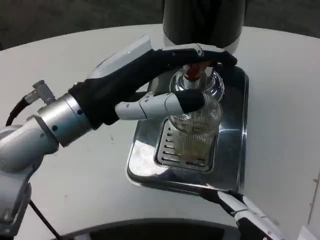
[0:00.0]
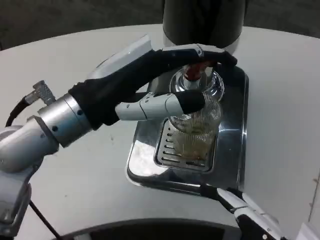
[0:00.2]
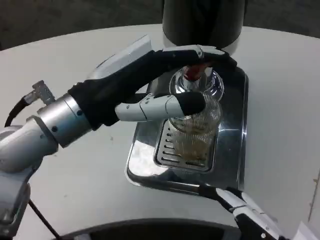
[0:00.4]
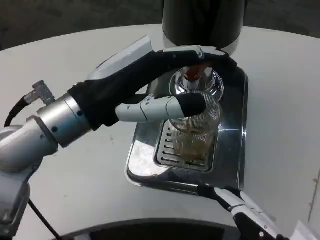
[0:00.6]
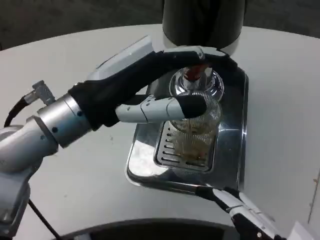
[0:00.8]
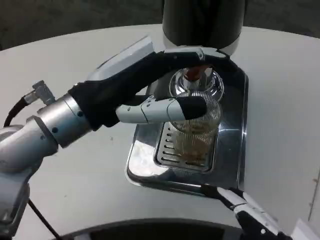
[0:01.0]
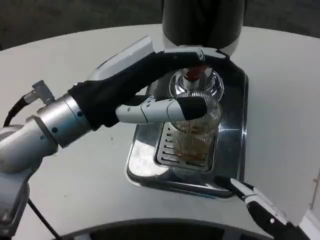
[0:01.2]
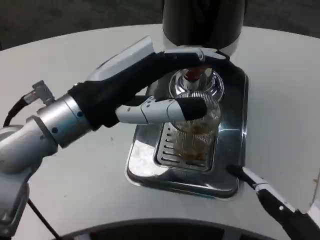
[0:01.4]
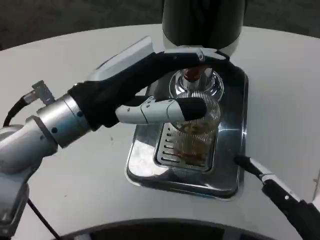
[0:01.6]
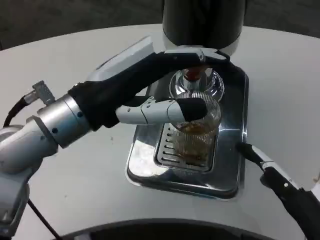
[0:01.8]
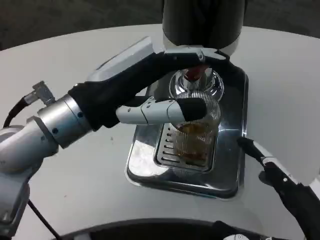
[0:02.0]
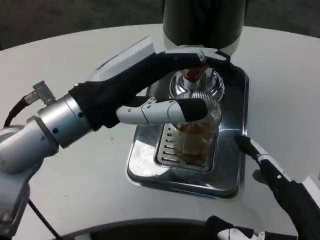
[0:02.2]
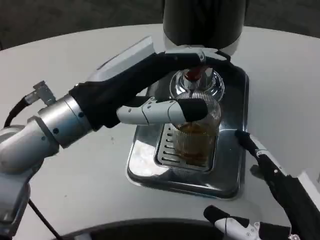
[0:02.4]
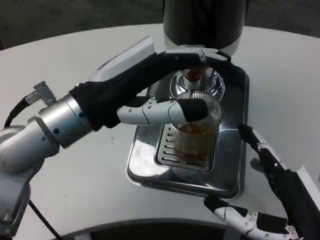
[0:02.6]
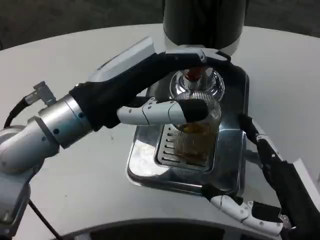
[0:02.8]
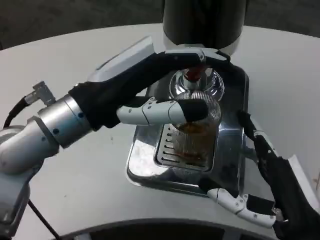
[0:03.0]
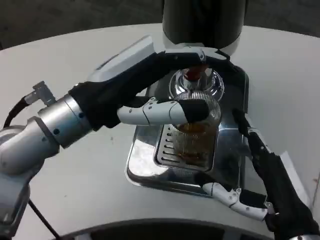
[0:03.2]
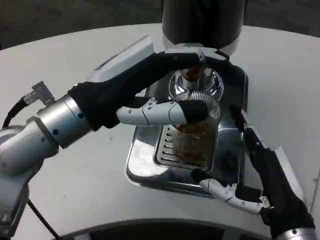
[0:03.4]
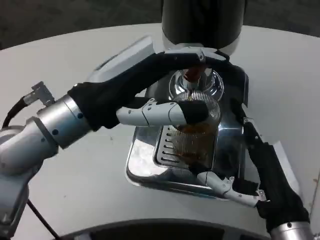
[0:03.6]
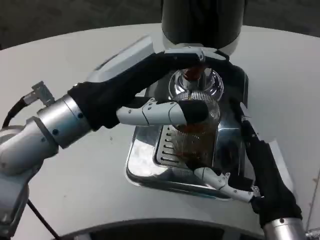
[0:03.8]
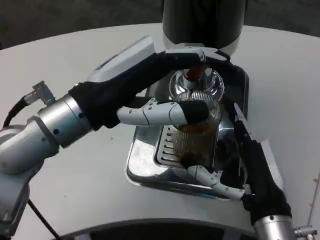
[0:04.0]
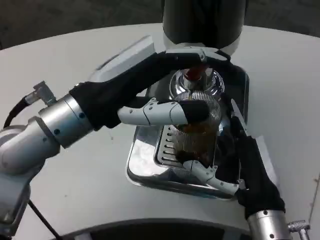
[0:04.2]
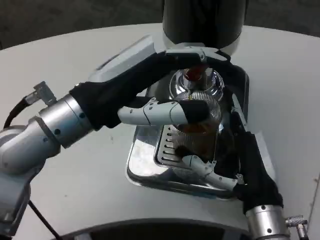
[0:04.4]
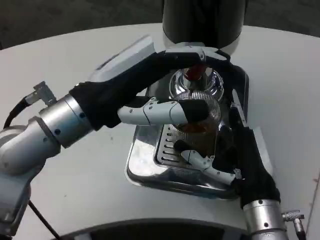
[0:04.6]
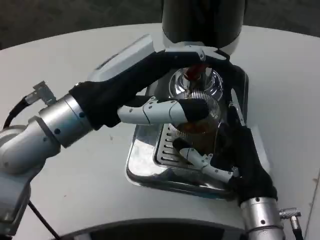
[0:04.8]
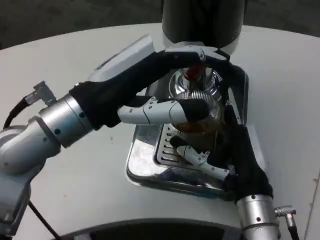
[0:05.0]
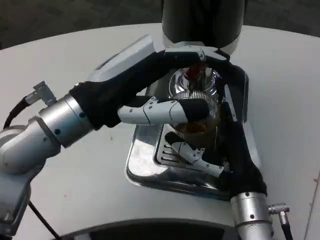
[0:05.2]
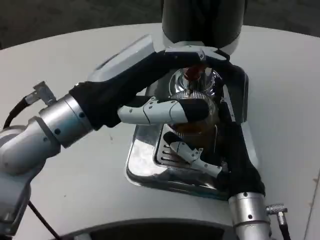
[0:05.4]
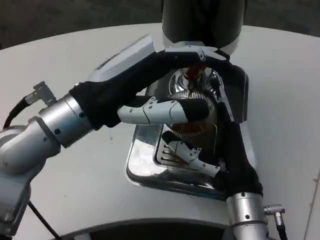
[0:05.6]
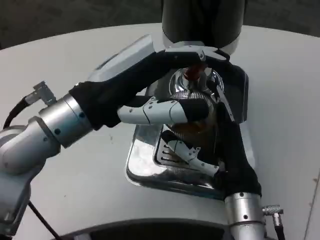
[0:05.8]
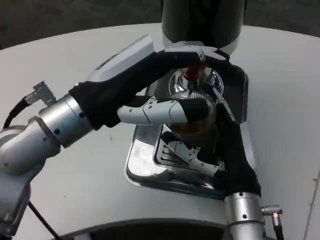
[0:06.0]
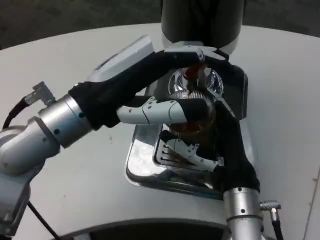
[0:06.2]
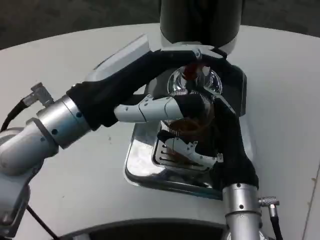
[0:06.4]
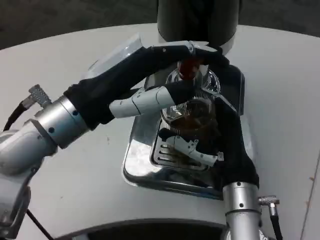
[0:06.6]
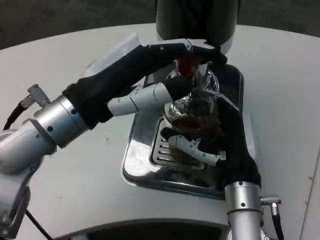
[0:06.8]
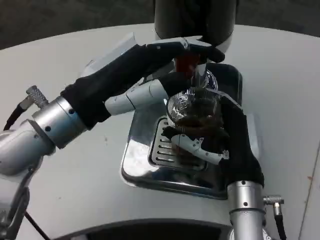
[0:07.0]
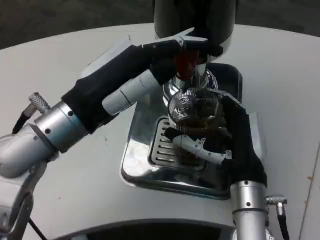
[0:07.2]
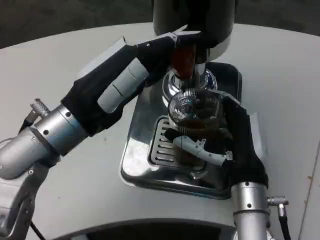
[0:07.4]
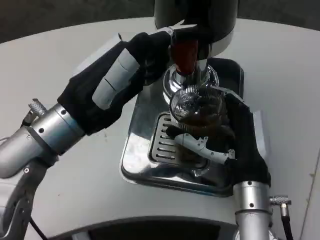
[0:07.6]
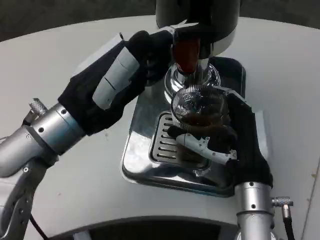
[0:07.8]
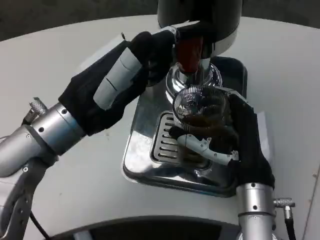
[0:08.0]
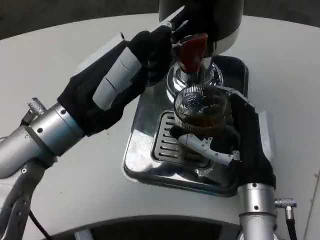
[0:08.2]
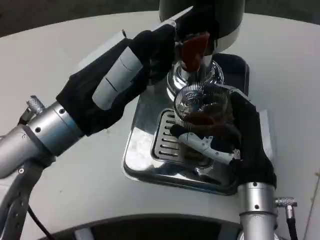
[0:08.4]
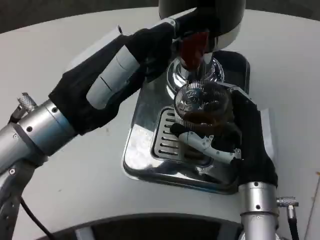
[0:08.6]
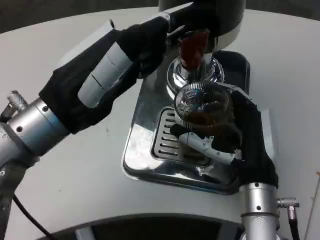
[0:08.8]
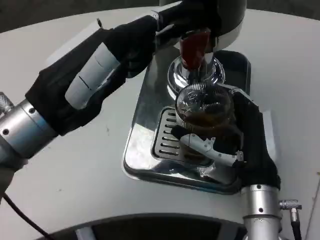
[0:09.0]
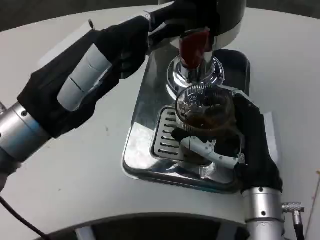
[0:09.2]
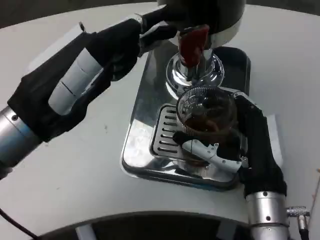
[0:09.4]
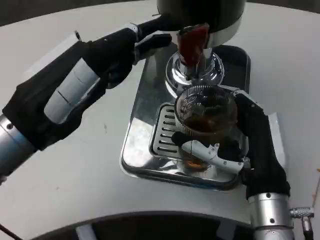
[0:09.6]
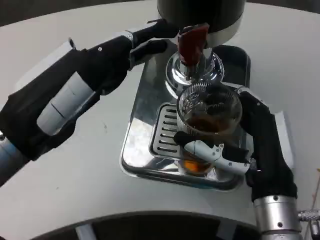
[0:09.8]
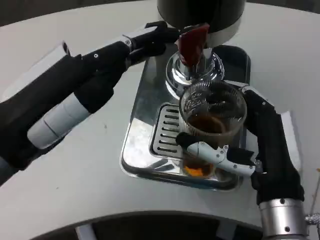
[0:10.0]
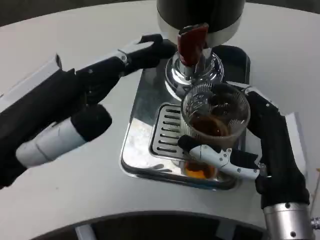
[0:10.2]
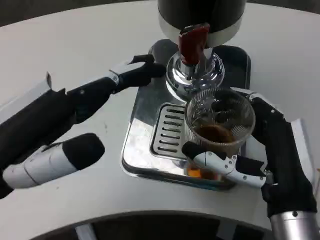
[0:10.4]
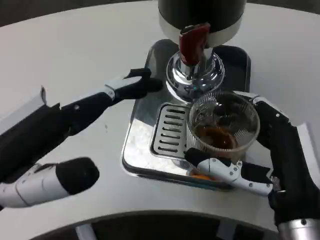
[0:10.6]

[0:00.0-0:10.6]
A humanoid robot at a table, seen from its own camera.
Task of the whole recording: Grasp the cup under the faucet to collect the drink, then remove the cup.
0:00.0 to 0:01.6: There are only small adjustments of the hands.
0:01.6 to 0:03.0: The right hand shifts roughly 10 cm forward and downward.
0:03.0 to 0:04.6: The right hand is displaced forward by approximately 10 cm.
0:04.6 to 0:06.0: The hands move only a little.
0:09.0 to 0:10.6: Both hands travel together backward, about 10 cm.

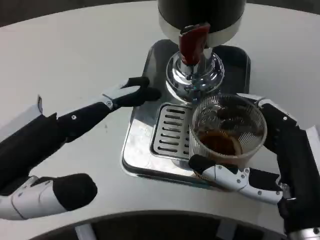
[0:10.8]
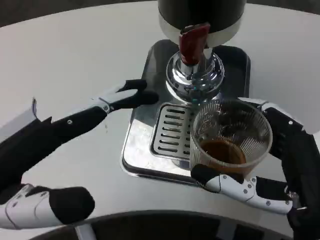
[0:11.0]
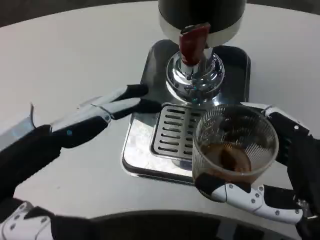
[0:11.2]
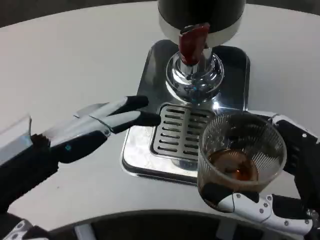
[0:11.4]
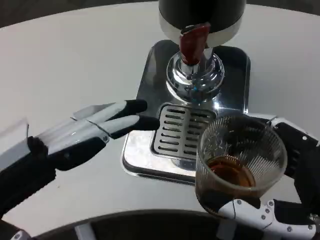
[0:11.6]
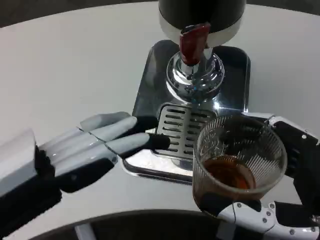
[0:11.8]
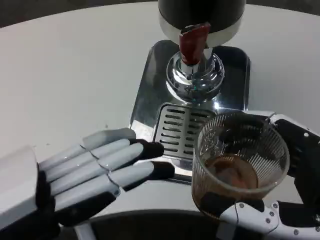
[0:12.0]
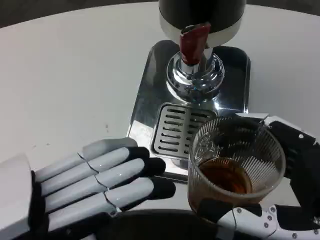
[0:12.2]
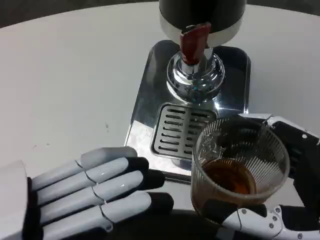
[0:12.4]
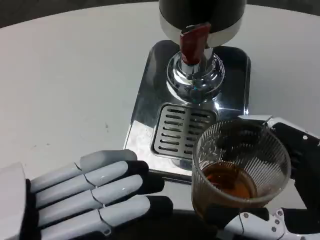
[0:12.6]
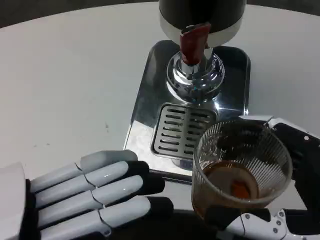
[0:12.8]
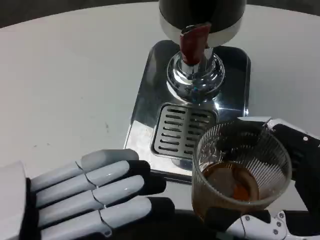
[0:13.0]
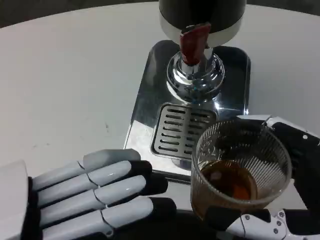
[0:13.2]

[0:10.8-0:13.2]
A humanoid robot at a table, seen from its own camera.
Task of the whole recording: Grasp the cup under the faucet to collect the drink, then remove the cup.
0:10.8 to 0:12.0: The right hand goes about 5 cm backward.

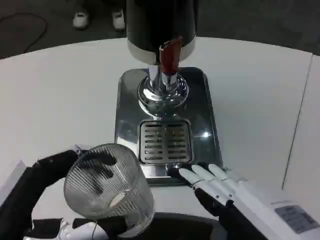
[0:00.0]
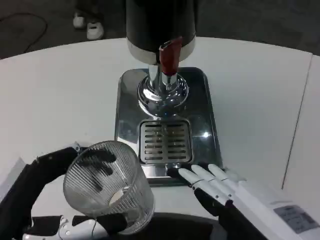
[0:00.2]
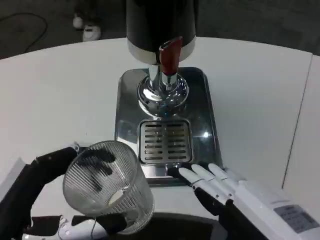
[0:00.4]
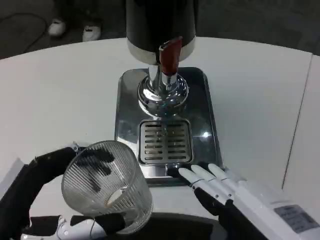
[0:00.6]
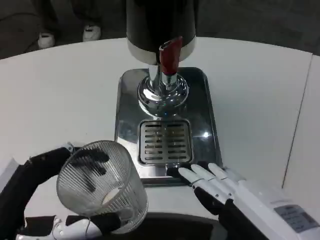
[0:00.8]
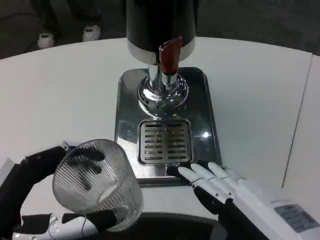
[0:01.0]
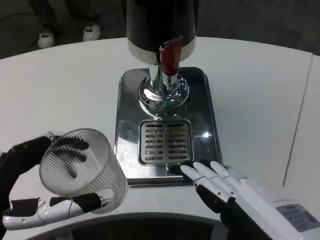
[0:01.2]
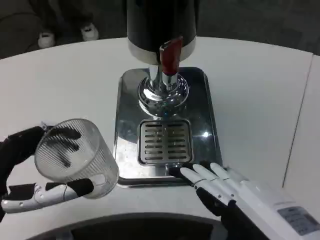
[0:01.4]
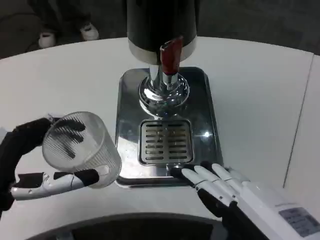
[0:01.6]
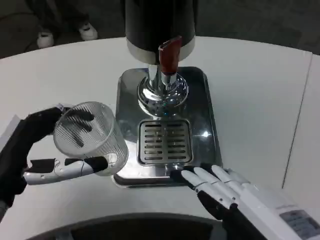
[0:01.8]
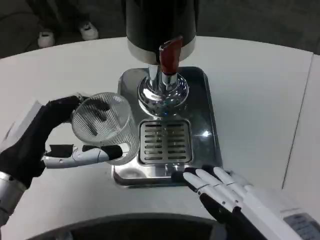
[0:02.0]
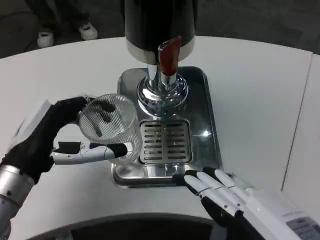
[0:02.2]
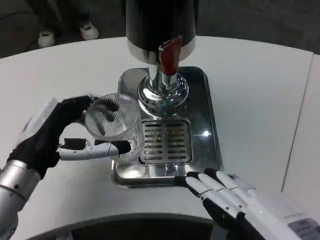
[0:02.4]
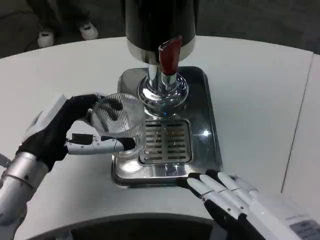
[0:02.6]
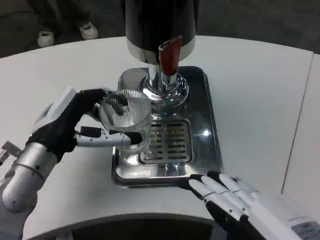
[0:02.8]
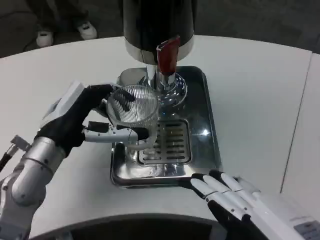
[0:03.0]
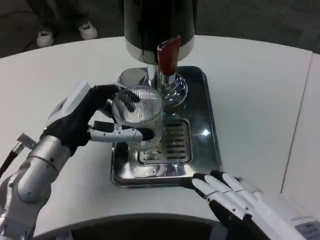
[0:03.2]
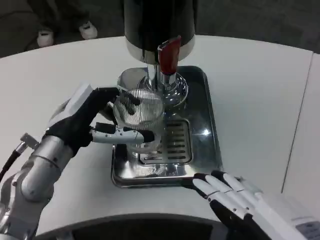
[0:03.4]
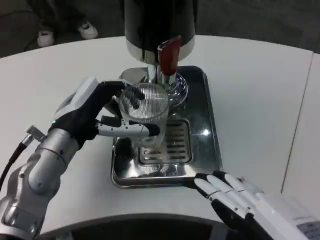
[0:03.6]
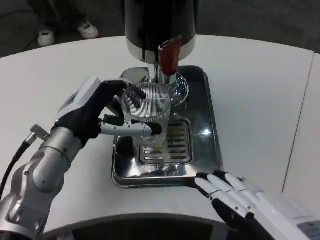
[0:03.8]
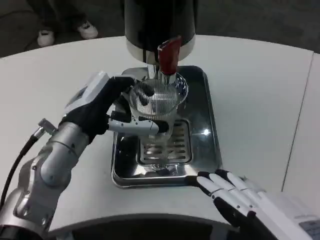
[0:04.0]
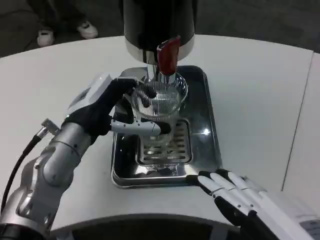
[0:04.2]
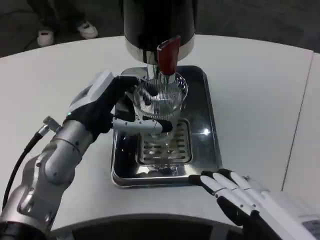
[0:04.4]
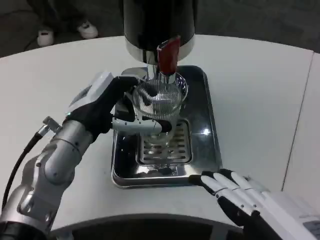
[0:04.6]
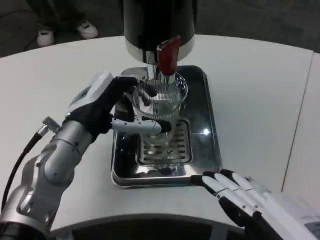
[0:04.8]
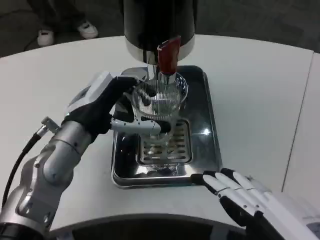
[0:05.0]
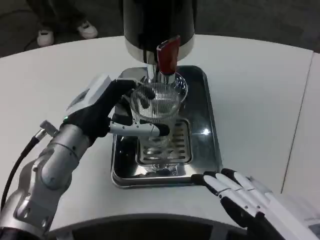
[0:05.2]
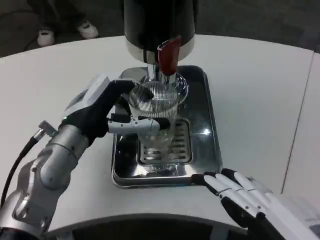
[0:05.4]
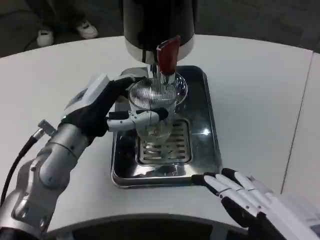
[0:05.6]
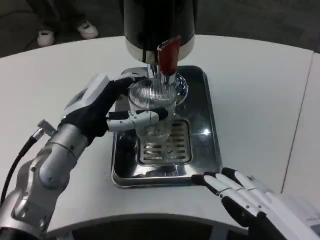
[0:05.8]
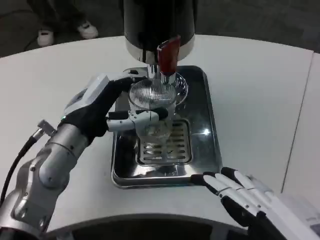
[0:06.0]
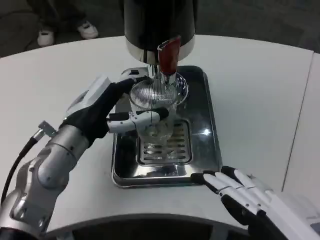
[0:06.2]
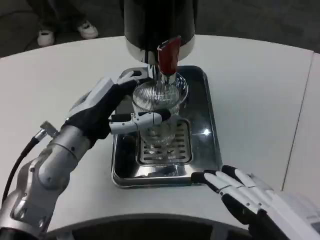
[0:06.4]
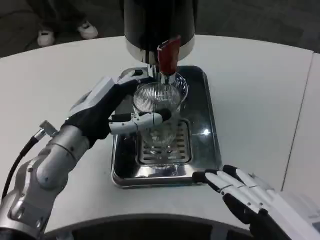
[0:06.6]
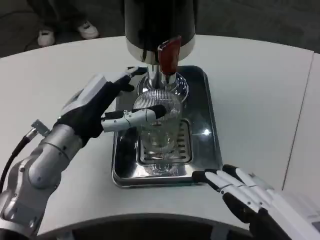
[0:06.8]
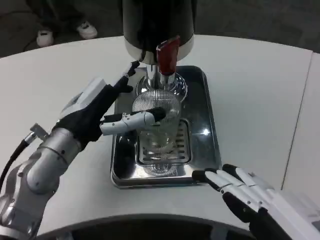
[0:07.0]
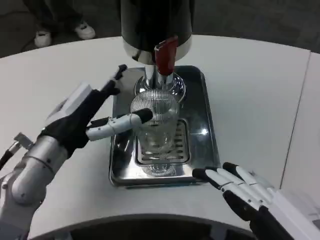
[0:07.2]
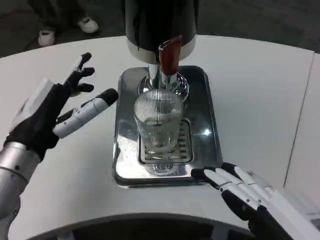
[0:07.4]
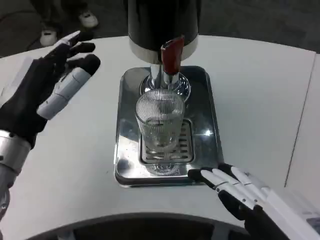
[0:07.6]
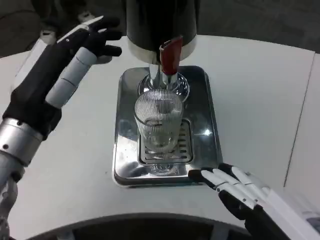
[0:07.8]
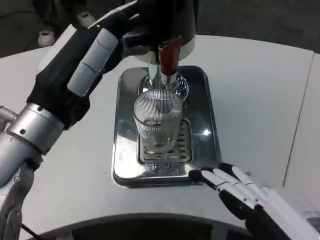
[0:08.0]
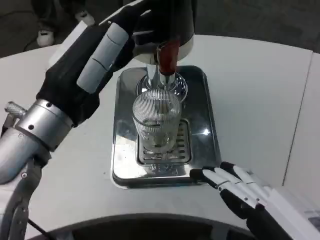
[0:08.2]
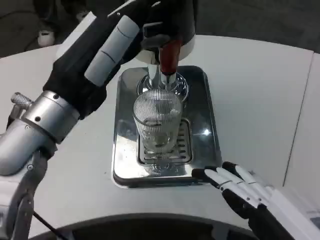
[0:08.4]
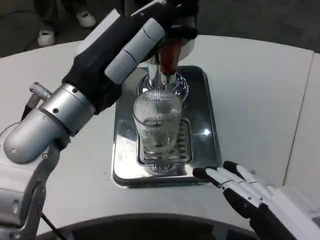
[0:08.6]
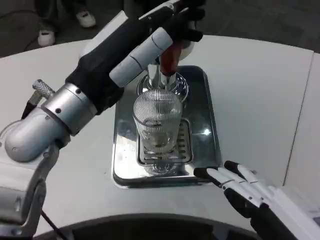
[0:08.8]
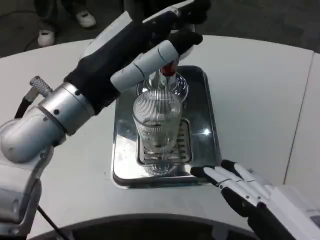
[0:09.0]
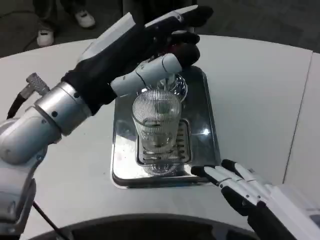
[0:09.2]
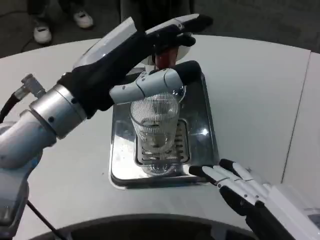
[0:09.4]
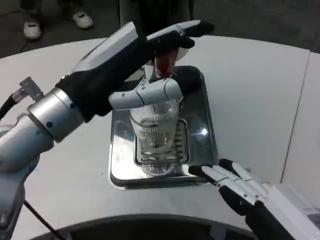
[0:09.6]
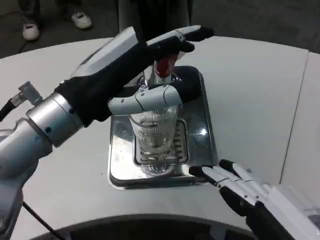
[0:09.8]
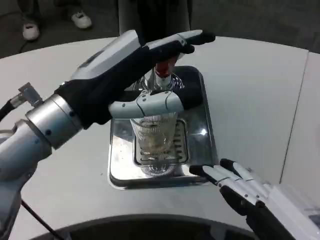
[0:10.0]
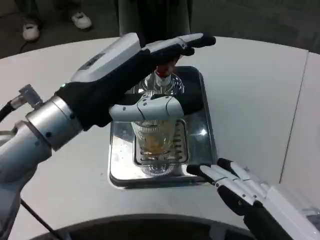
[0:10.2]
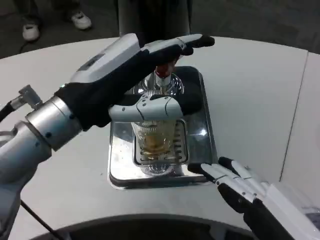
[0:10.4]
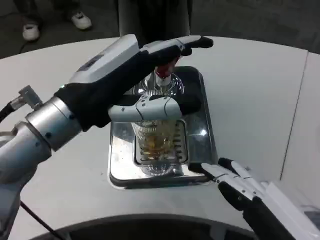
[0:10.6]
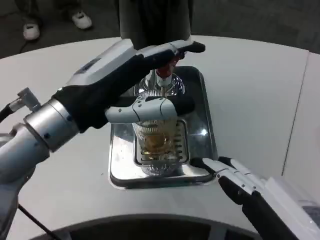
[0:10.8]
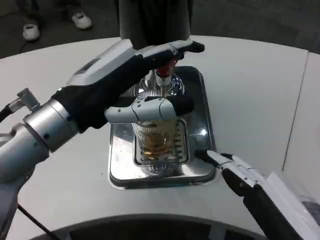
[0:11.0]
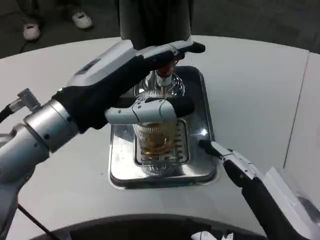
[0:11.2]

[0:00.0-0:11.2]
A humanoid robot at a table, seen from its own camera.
Task of the whole recording: Grasp the cup under the faucet to collect the drink, then remove the cup.
0:00.0 to 0:01.6: The left hand moves forward, about 5 cm.
0:01.6 to 0:03.2: The left hand shifts roughly 15 cm forward and to the right.
0:04.8 to 0:06.4: Both hands stay put.
0:06.4 to 0:08.0: The left hand goes about 10 cm upward and backward.
